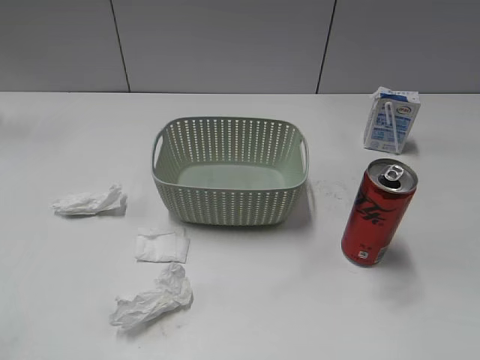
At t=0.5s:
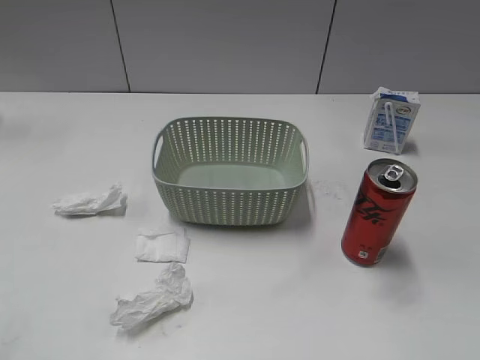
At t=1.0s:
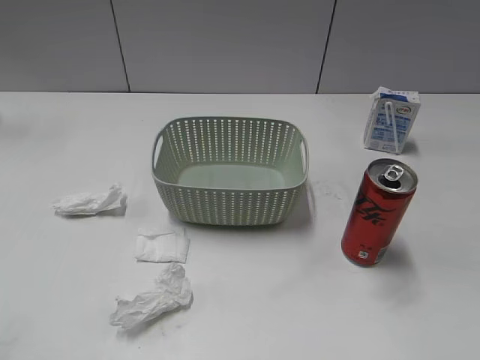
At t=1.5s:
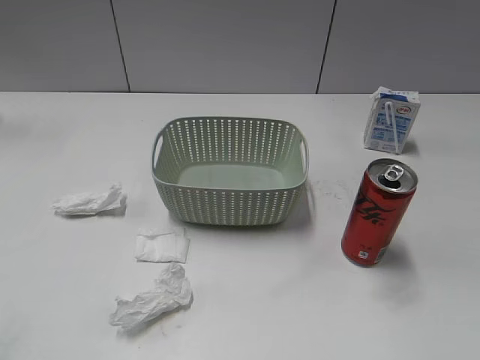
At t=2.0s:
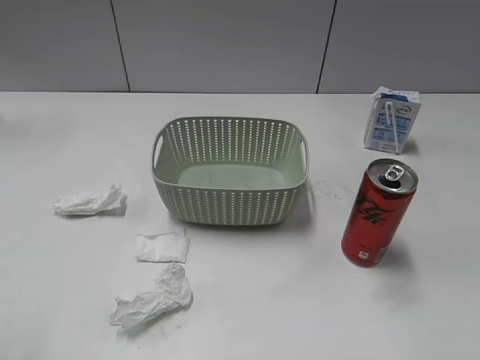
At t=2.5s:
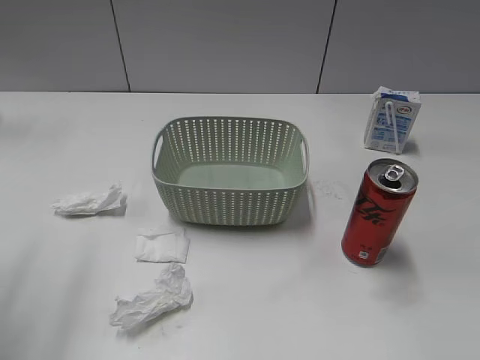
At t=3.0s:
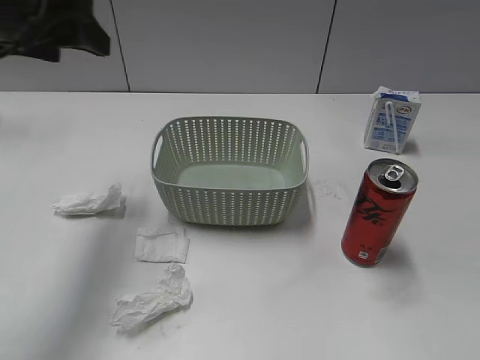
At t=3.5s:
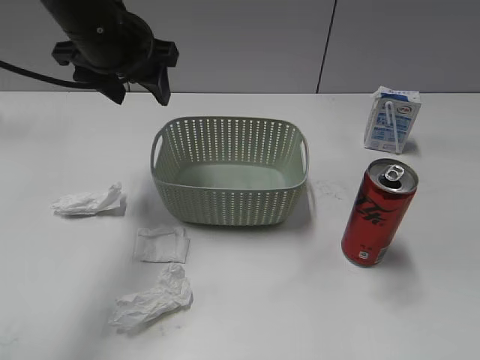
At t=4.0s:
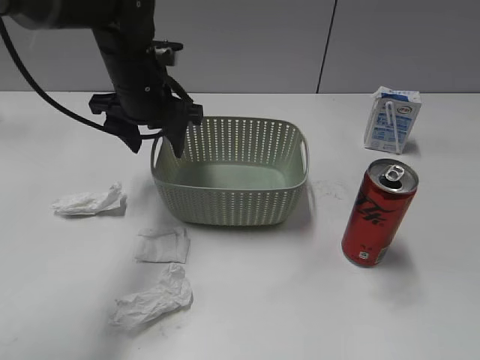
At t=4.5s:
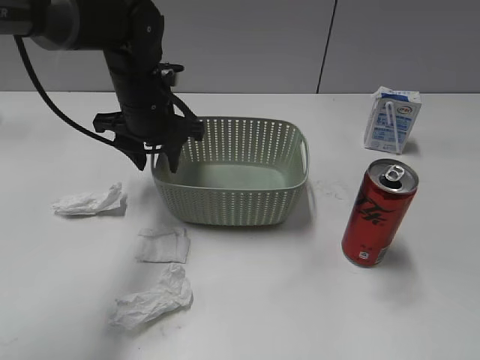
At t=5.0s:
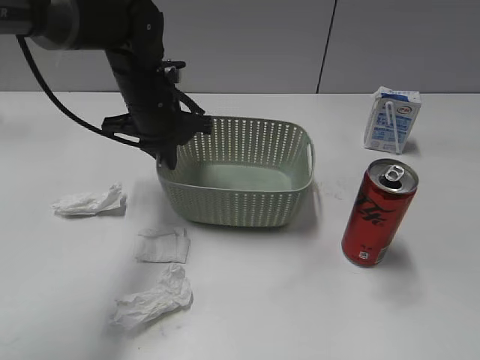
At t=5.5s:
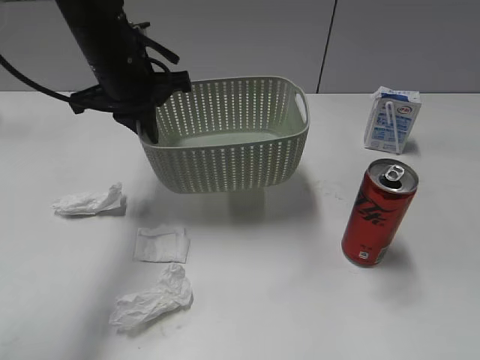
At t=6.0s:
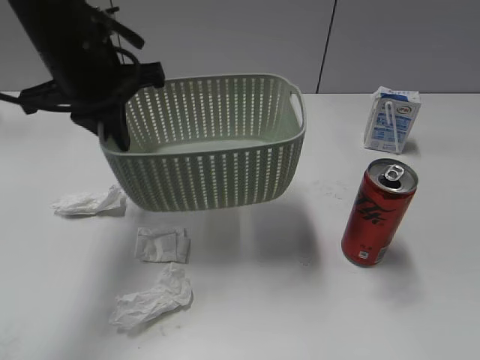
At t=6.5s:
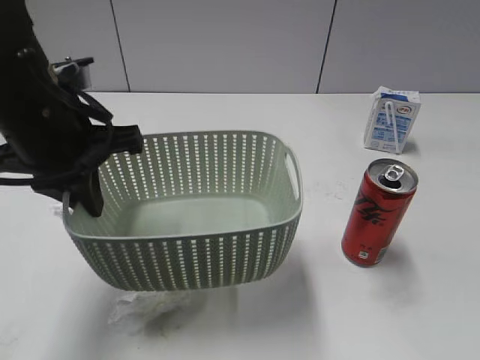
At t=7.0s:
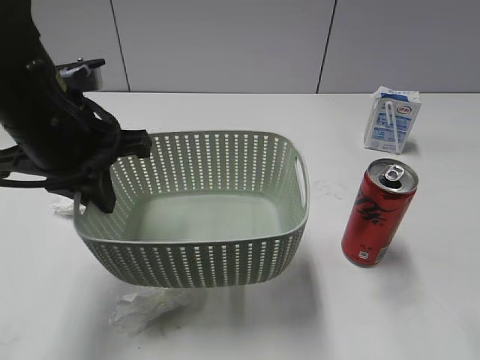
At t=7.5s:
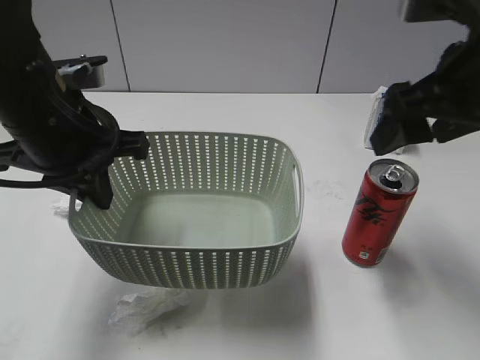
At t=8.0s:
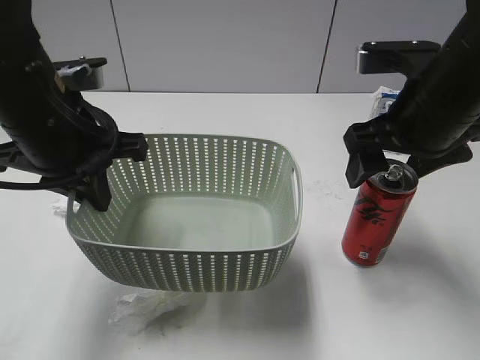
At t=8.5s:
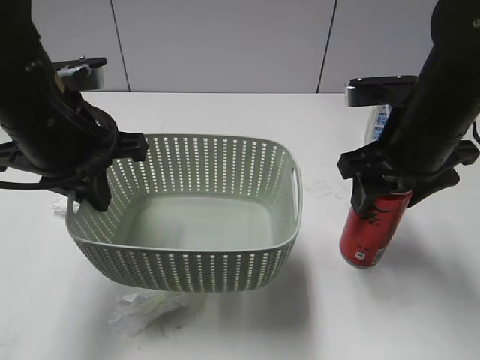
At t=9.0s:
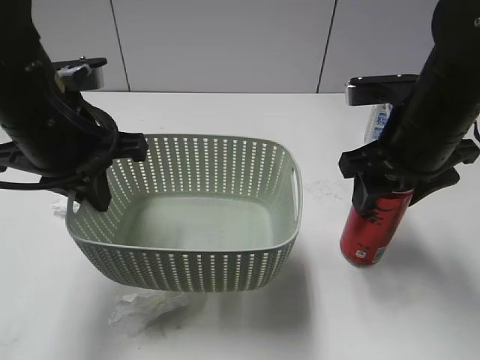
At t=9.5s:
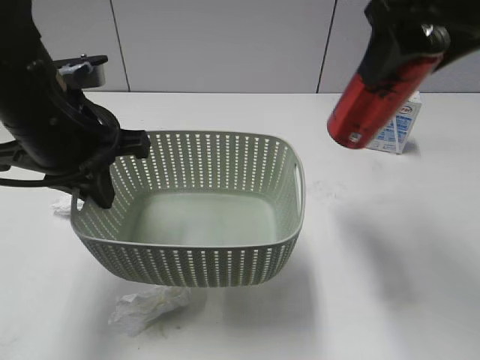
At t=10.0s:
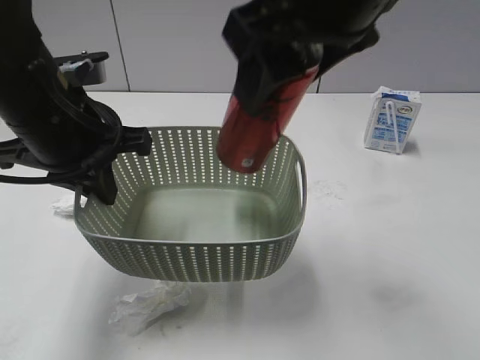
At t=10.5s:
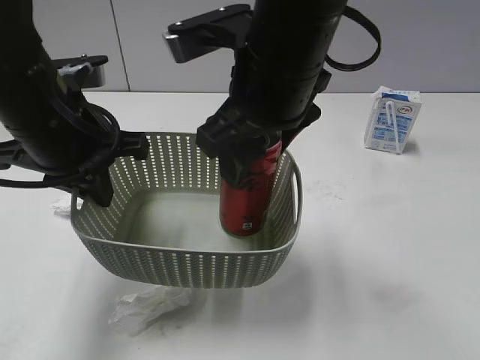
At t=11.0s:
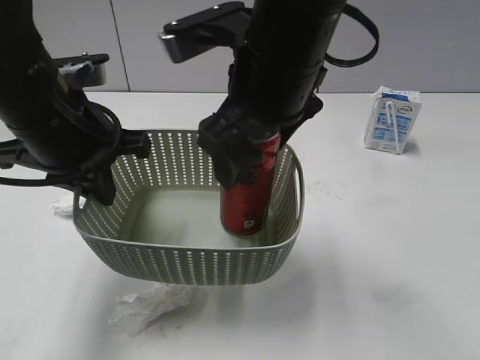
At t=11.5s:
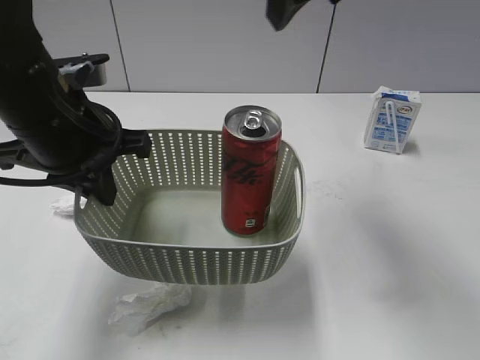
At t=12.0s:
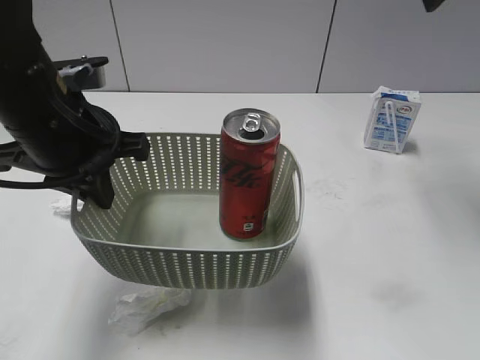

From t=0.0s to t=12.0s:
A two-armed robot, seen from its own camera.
Step, from t=3.0s to t=5.0s: Grasp the basket with left gripper.
Step, from t=5.5s to t=7.0s: Lift the basket with left gripper.
Step, from t=7.5s to t=8.5s: Grasp the cola can with right gripper.
Step, from t=9.0s to t=11.0s: Place the cola can in the basket with right gripper.
From t=2.0s to t=4.0s: The left gripper moves forward and to the right, approximately 40 cm.
From t=4.0s to t=6.0s: The left gripper shifts approximately 10 cm upward and backward, and closes its fingers.
From t=6.0s to t=8.0s: The right gripper is displaced forward and to the left by about 30 cm, and opens up. Meanwhile the left gripper heads backward, covering some 10 cm.
From t=8.0s to t=10.0s: The right gripper travels upward and to the left by approximately 15 cm, and closes its fingers.
From t=10.0s to t=12.0s: The right gripper shifts roughly 20 cm to the right and forward, and opens up.

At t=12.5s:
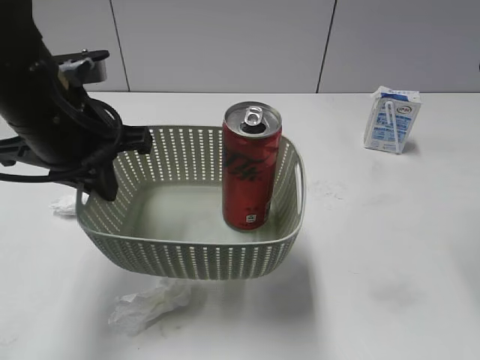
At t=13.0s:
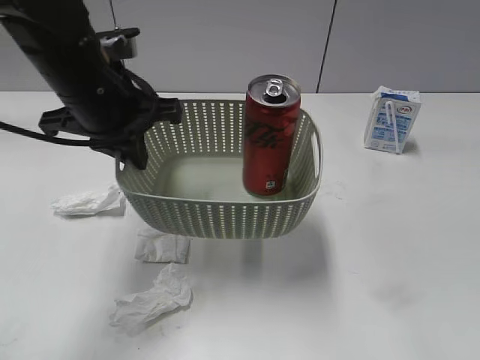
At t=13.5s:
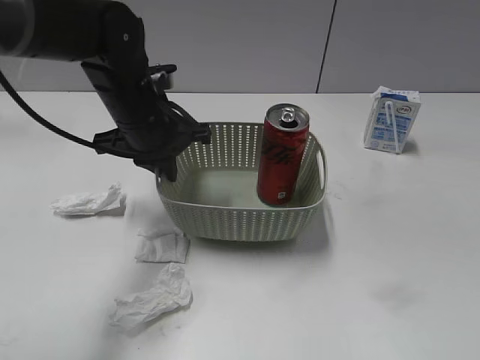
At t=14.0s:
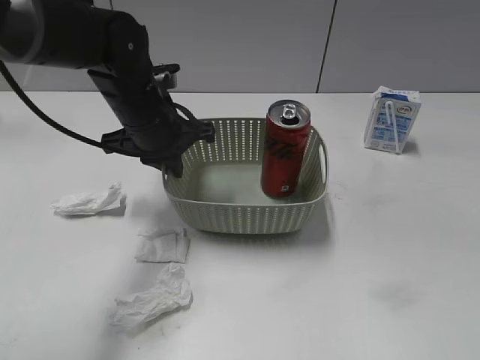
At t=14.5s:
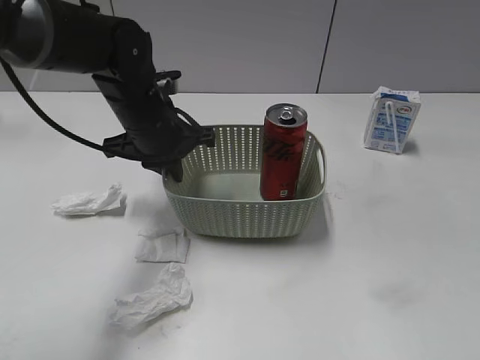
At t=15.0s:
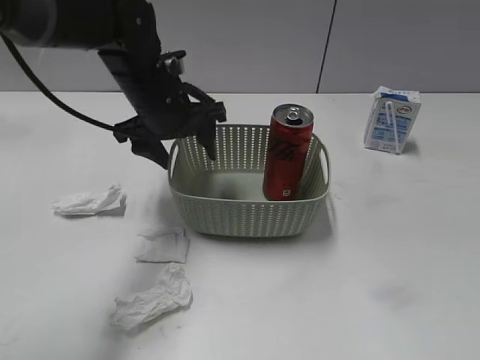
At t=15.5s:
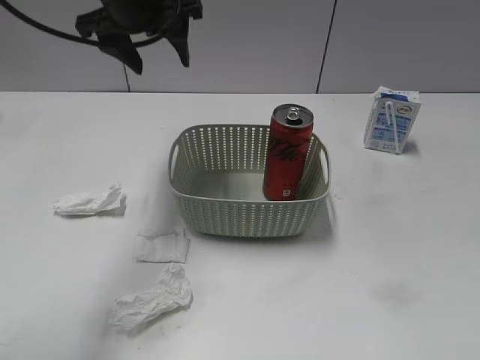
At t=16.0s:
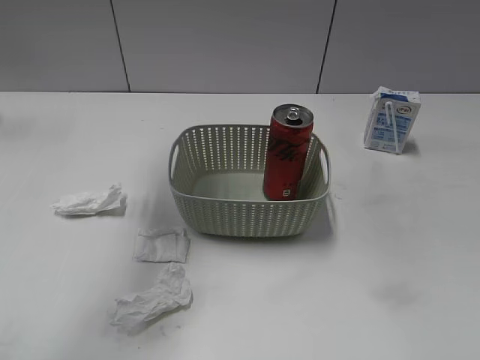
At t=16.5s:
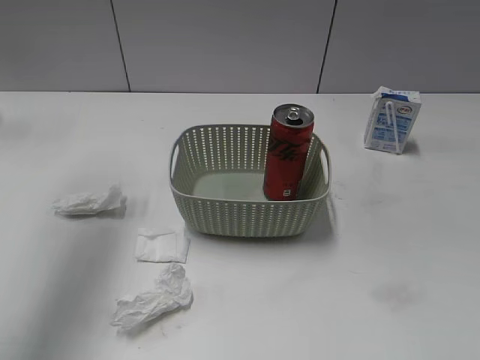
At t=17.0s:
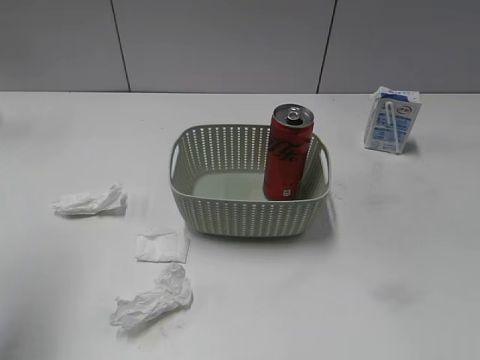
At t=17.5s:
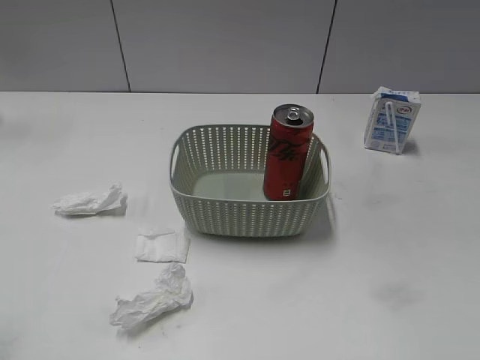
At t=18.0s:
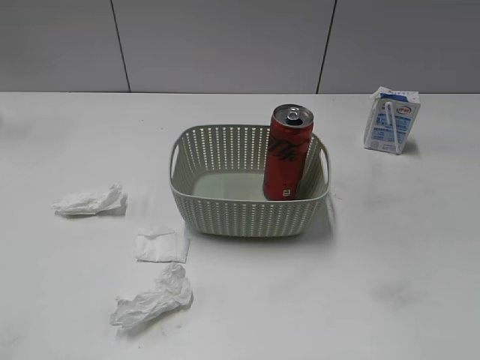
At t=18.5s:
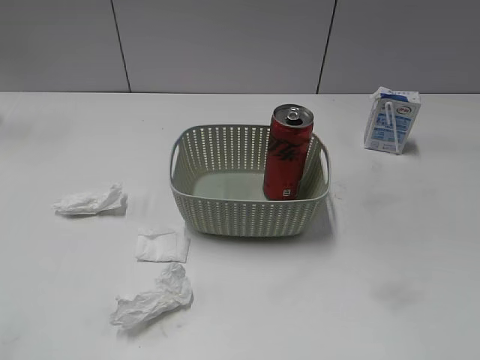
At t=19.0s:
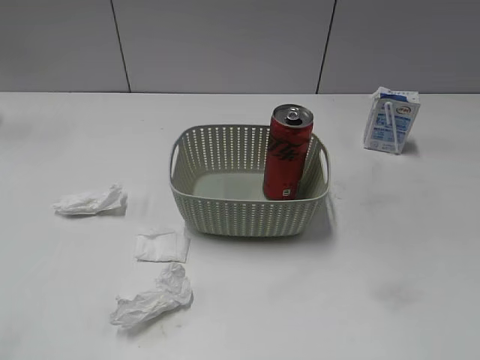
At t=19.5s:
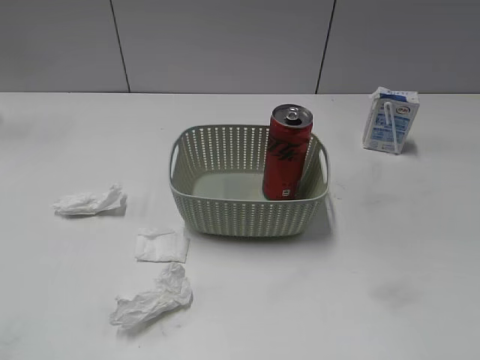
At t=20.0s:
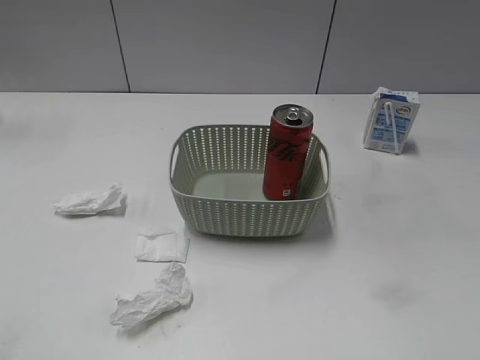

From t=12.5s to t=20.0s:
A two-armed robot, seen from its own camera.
Step, from t=12.5s to t=15.0s: Place the basket on the table with left gripper.
From t=12.5s to t=14.5s: The left gripper moves forward, downward and to the right, approximately 15 cm; the right gripper shifts approximately 30 cm backward and downward.
From t=14.5s to t=16.5s: The left gripper travels upward and to the left by about 30 cm, and opens up.
From t=16.5s to t=18.0s: The left gripper goes some 35 cm backward and downward.

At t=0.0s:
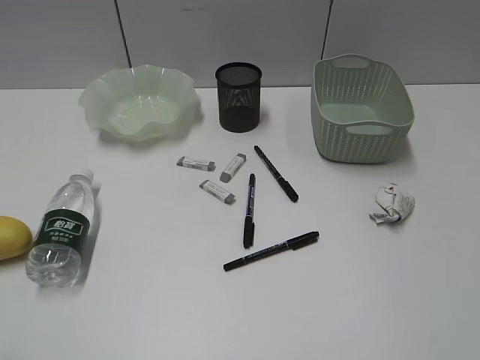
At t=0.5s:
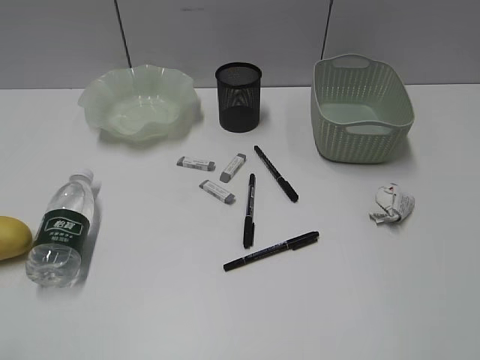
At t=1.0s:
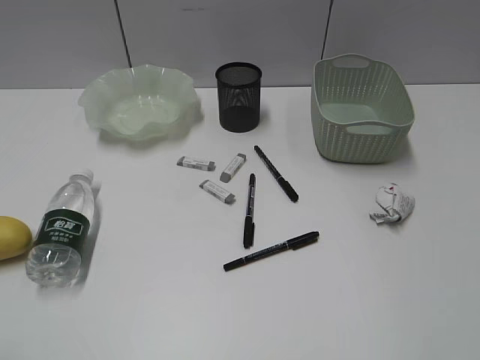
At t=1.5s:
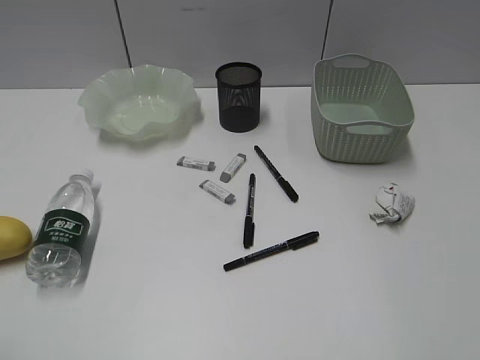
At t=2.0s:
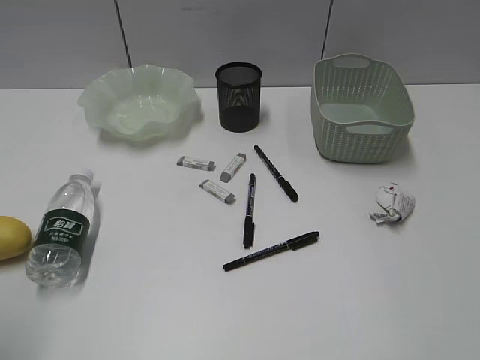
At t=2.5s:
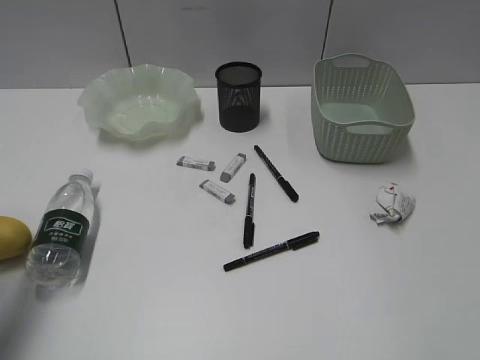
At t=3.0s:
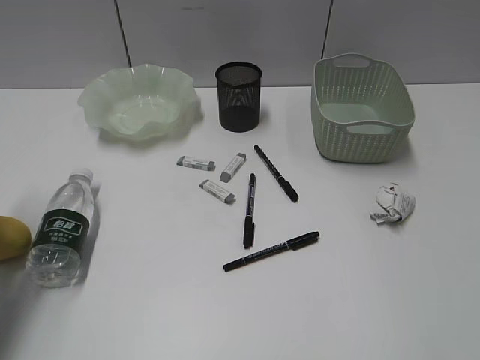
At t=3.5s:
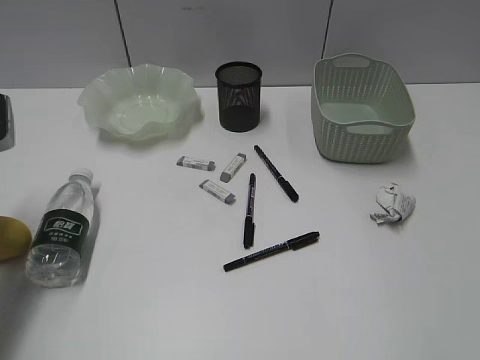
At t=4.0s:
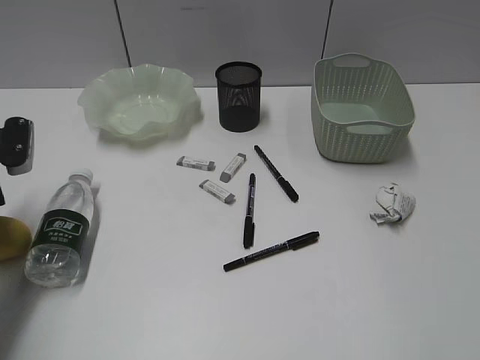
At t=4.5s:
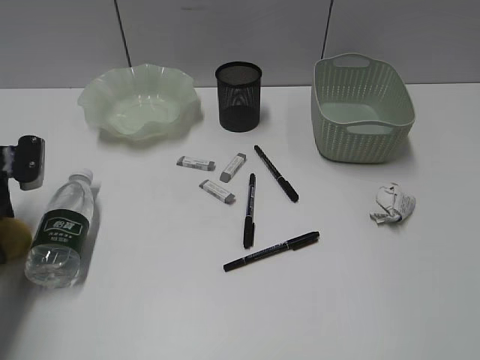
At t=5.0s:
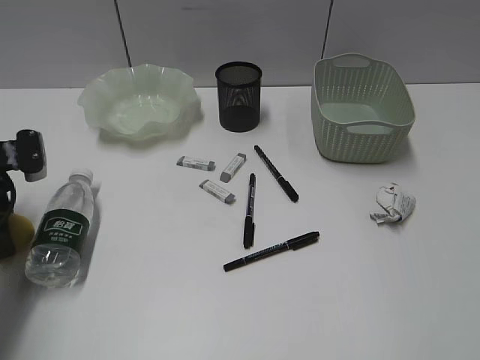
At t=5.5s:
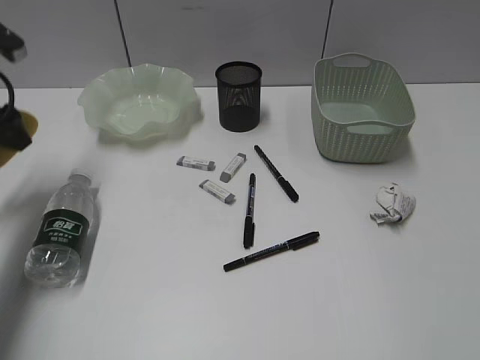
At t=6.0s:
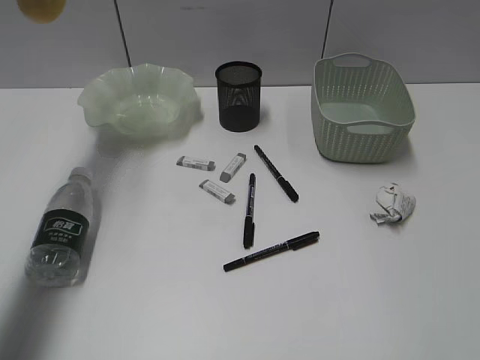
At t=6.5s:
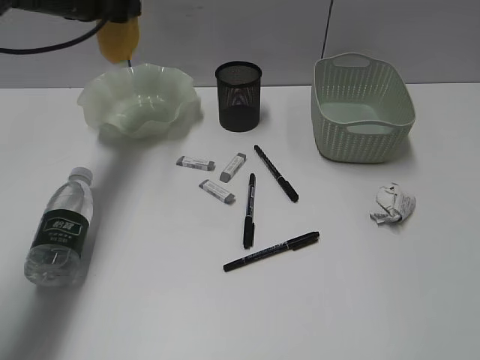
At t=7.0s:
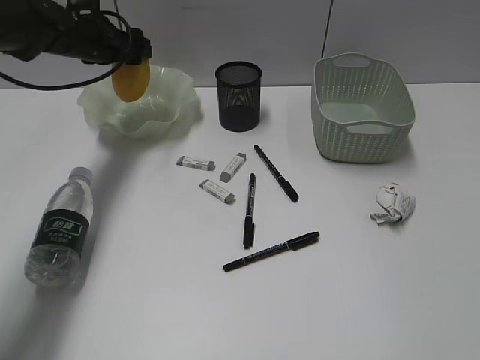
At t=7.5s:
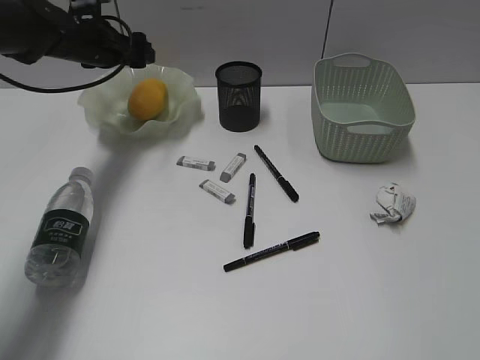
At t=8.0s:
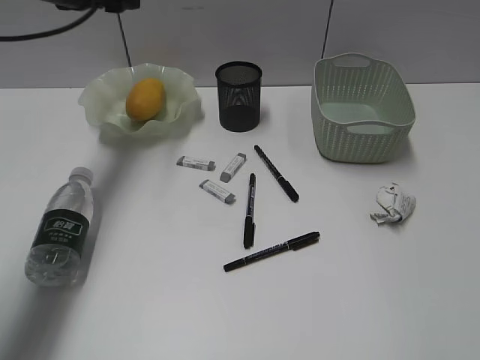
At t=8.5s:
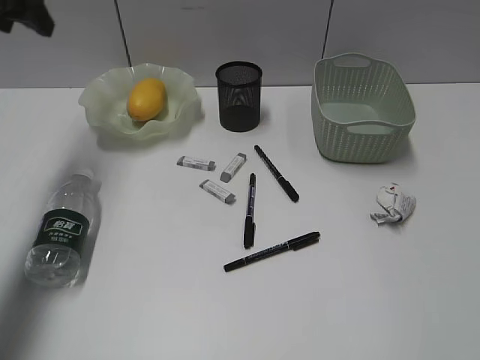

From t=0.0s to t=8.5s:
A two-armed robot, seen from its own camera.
Step, from t=3.5s to t=5.0s: Grasp the mango with left gripper.
Step, from t=5.5s to t=7.0s: Place the mango in the plate with left gripper.
From t=2.0s to t=4.0s: The left gripper travels forward and downward by roughly 30 cm.
From t=4.0s to t=6.5s: The left gripper is displaced forward, to the right and upward by roughly 25 cm.
From t=6.5s to t=8.5s: The left gripper travels to the left, backward and upward by roughly 15 cm.
